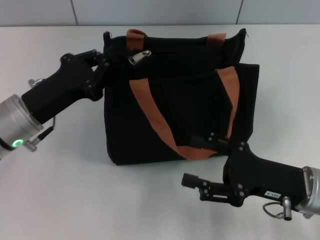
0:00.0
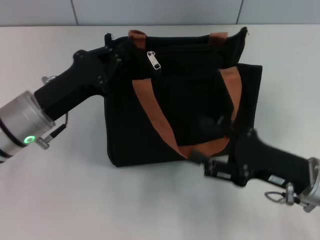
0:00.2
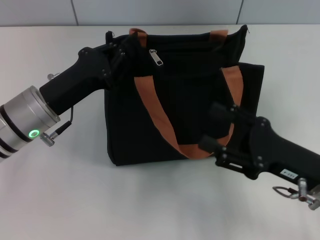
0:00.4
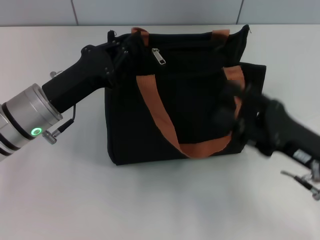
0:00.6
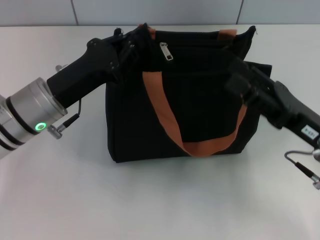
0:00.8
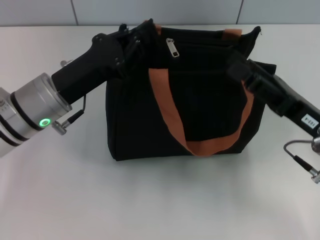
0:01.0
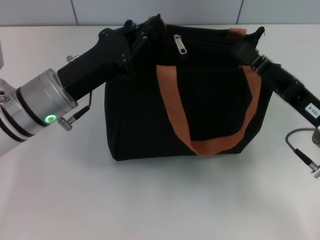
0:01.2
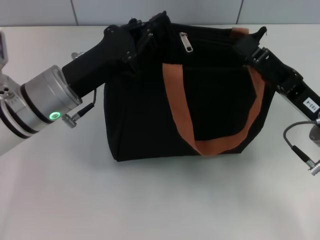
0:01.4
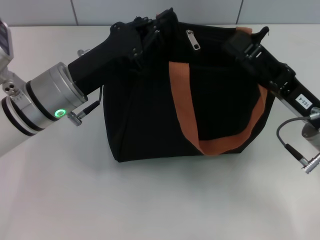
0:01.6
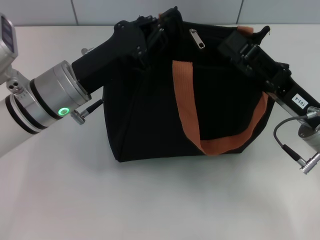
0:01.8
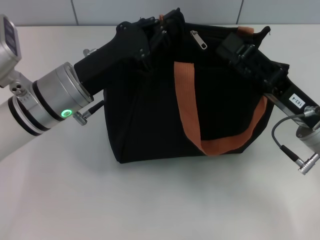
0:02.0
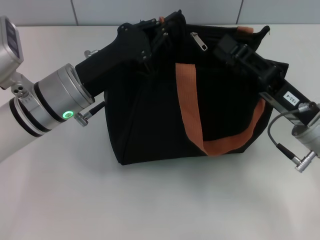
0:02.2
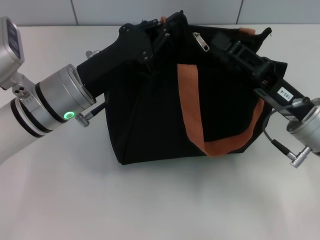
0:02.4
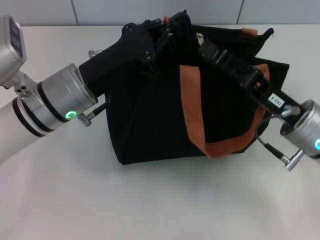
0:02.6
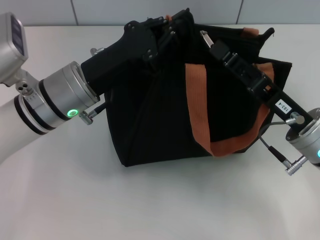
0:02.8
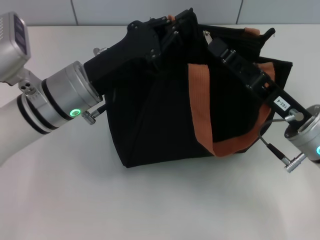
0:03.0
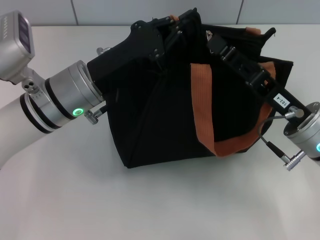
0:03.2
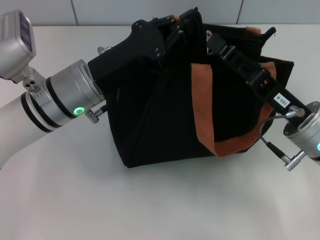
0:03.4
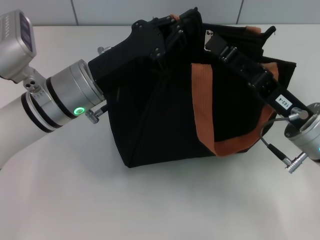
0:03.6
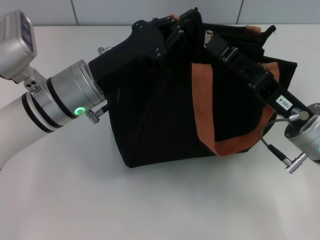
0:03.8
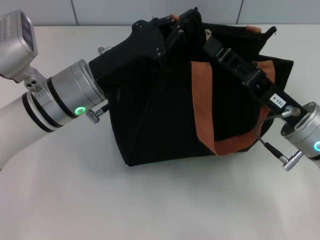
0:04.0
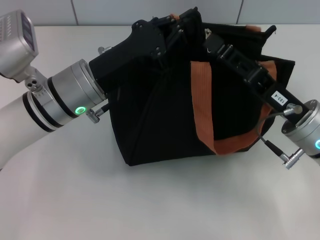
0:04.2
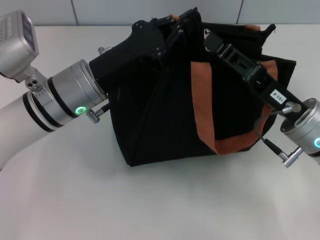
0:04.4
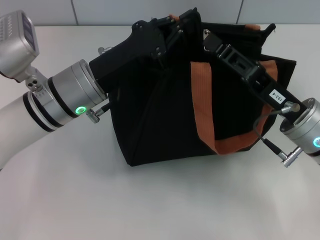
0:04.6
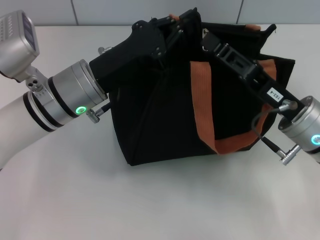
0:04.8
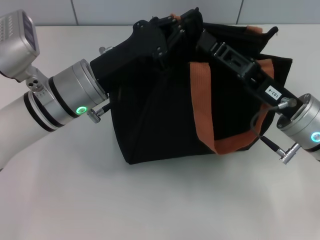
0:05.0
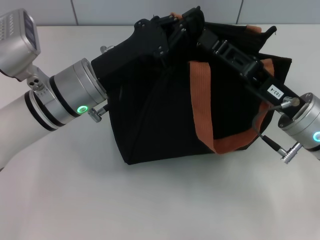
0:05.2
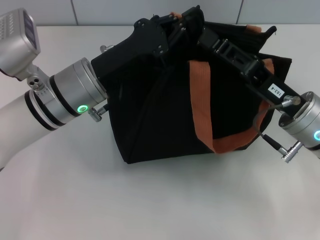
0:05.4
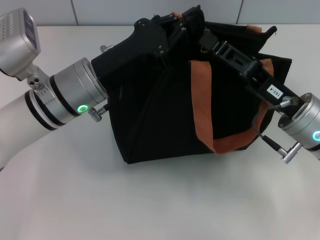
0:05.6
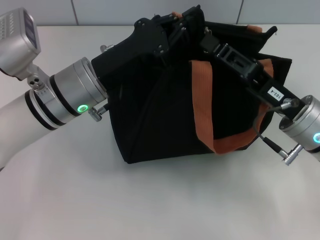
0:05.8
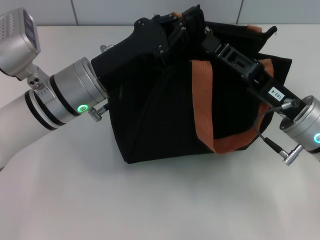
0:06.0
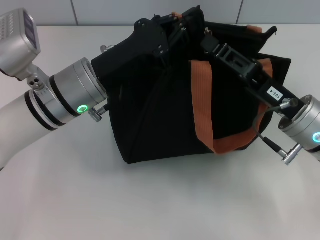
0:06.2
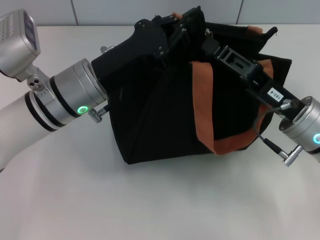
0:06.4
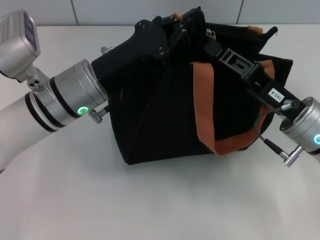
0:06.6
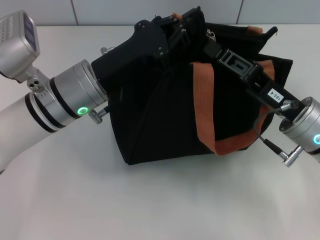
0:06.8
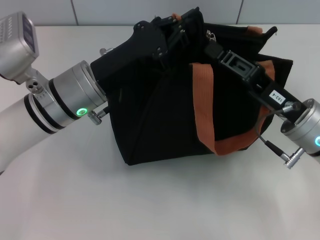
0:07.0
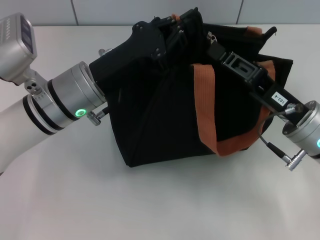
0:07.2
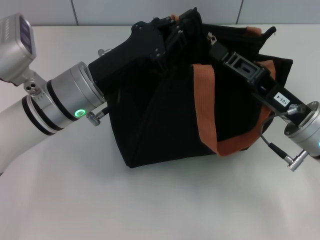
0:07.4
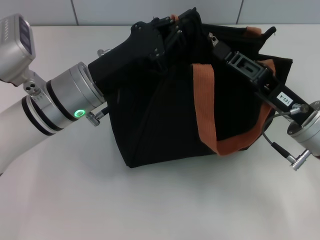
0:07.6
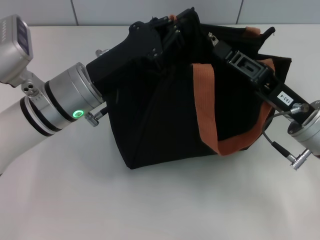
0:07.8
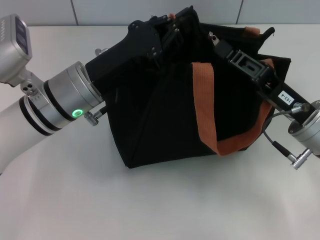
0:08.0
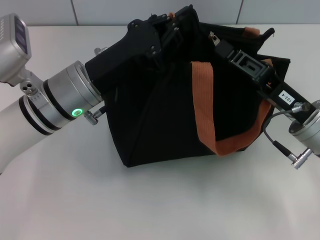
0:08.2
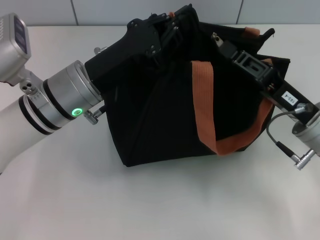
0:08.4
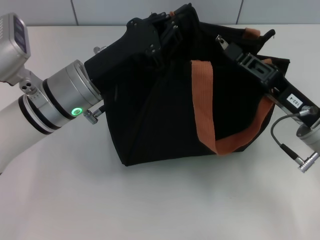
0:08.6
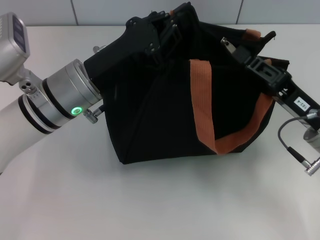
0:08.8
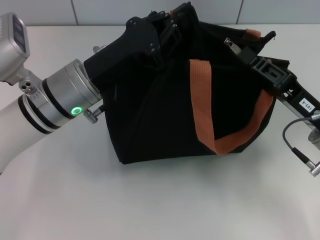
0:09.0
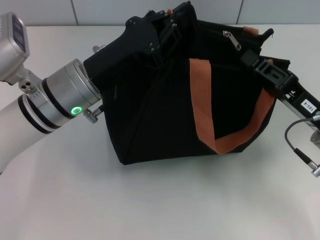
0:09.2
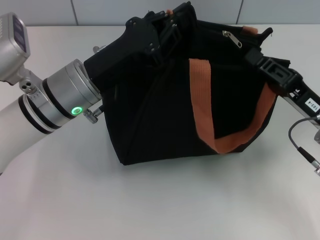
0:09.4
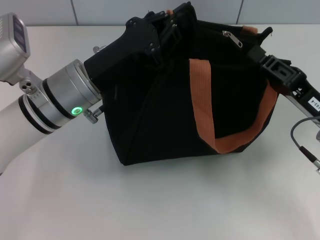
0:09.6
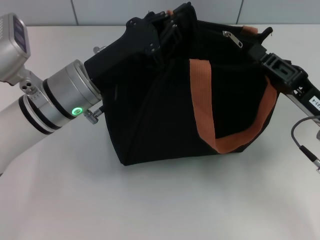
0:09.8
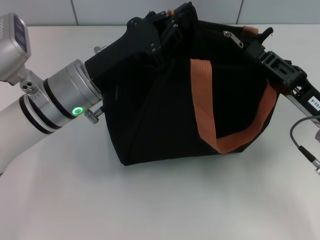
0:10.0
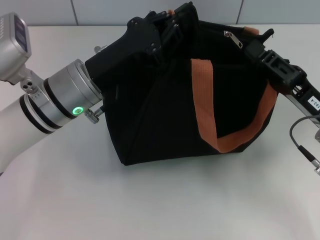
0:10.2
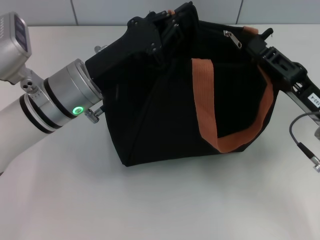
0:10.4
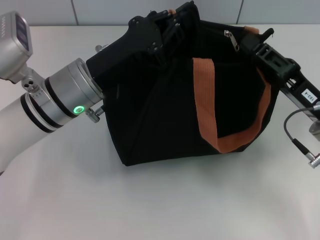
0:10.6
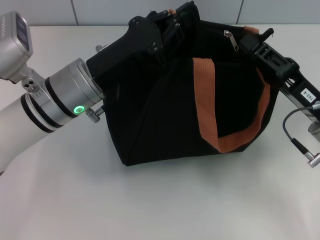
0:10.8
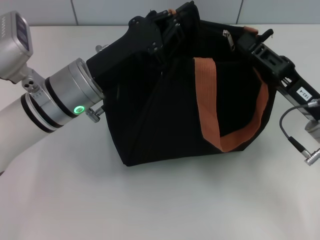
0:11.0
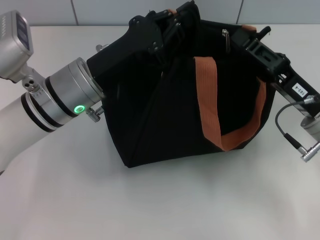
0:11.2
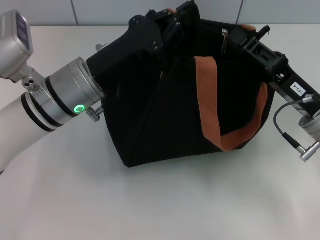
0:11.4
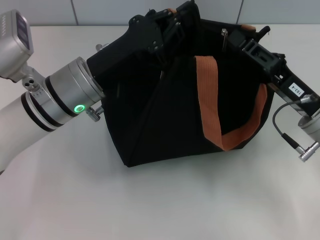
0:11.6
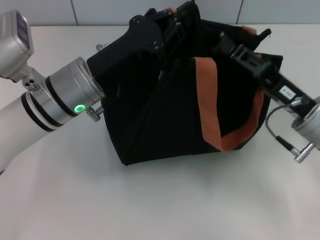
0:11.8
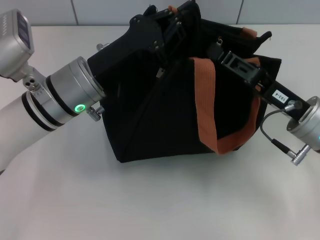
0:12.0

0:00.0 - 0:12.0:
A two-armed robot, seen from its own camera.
0:00.0 - 0:01.6: The right gripper shifts by approximately 5 cm. The left gripper heads to the right, covering approximately 5 cm.
0:03.0 - 0:04.4: Both grippers stay put.
0:04.4 - 0:06.0: Neither gripper changes place.
0:06.0 - 0:07.6: The right gripper closes up.
0:07.6 - 0:09.0: The grippers move only a little.
0:09.0 - 0:10.4: The two grippers keep their place.
0:10.4 - 0:12.0: The grippers make only small movements.

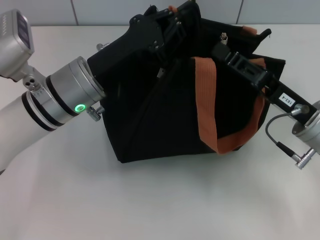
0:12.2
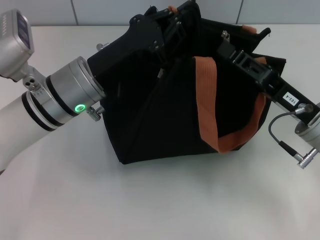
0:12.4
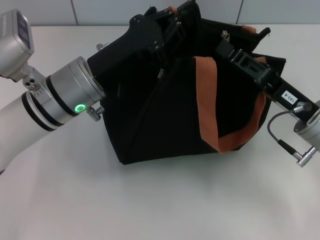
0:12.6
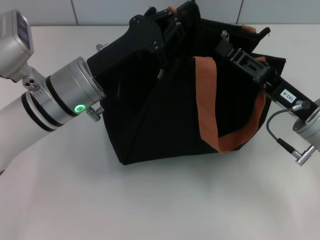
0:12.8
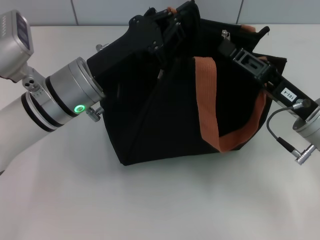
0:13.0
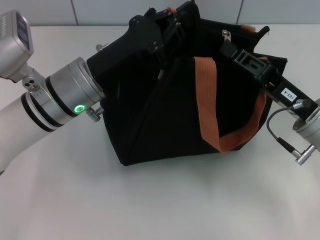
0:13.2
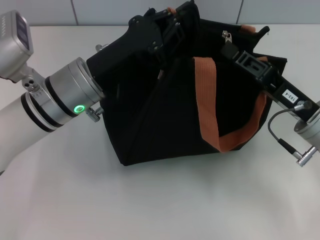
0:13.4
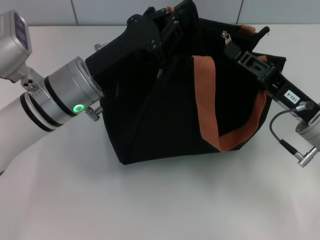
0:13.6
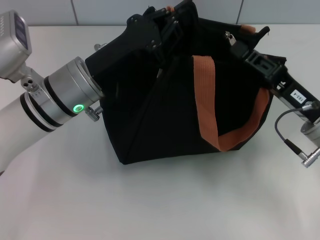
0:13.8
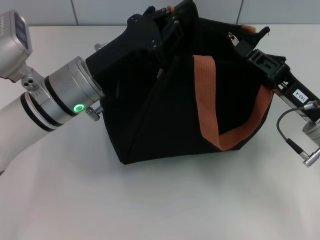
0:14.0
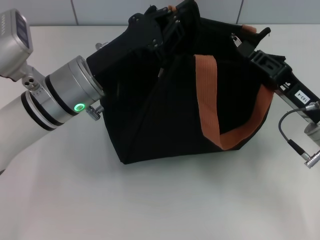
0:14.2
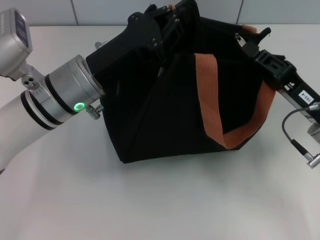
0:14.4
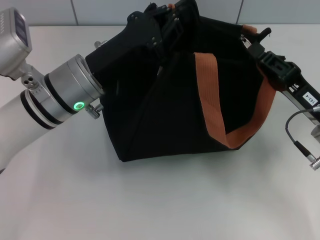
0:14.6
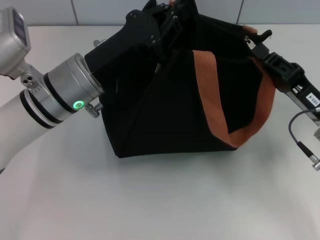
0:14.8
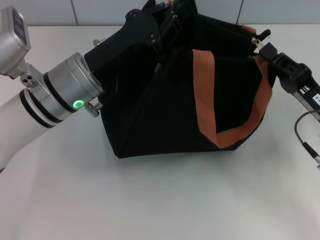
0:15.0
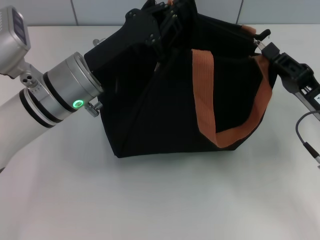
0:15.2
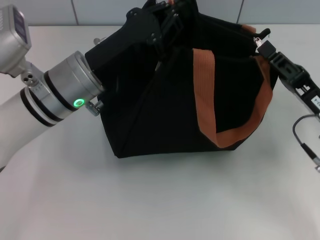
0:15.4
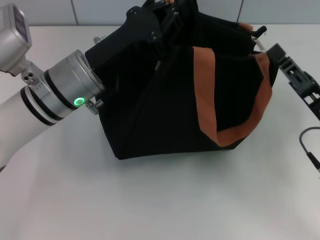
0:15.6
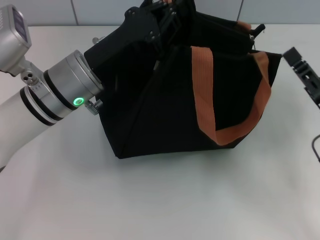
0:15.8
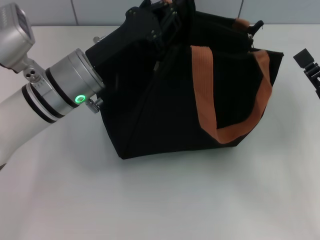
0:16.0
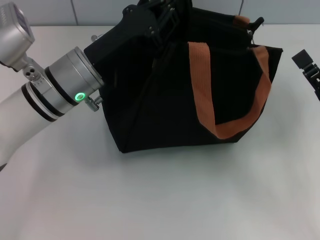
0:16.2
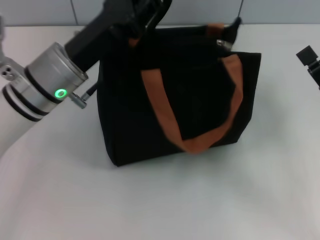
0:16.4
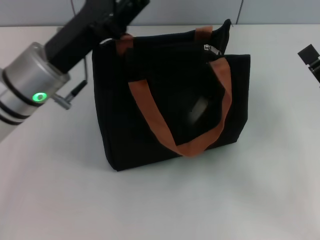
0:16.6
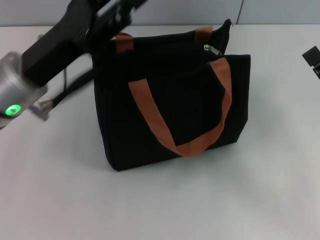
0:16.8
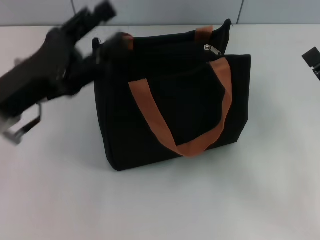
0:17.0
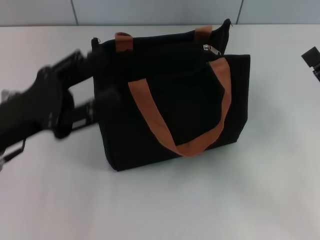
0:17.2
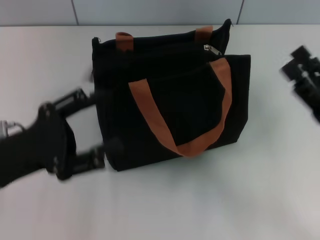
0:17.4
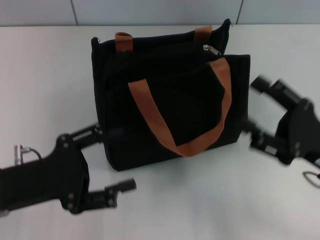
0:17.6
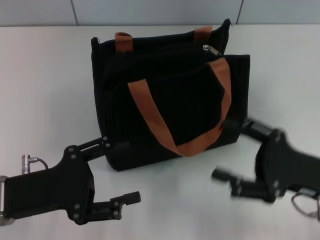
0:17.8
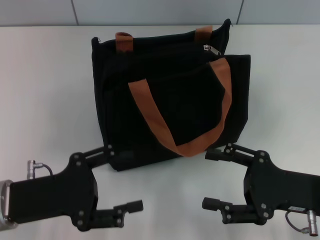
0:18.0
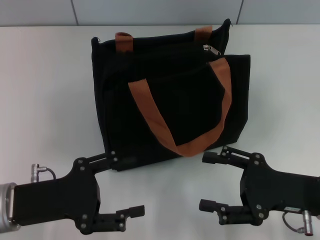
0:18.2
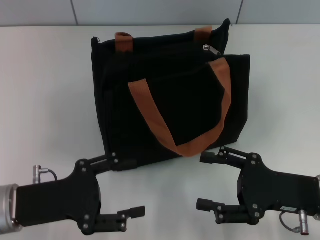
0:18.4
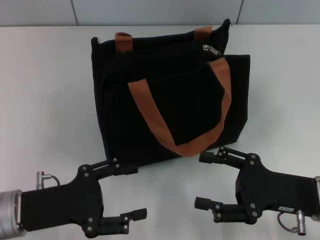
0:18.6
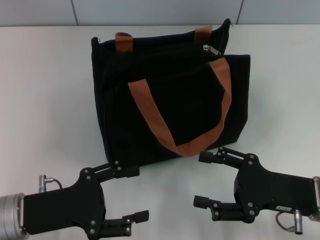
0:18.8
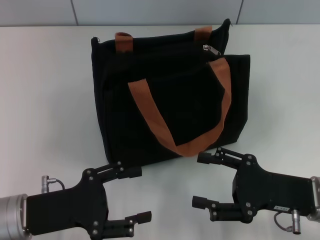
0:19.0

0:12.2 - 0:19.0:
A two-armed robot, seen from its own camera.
Step, 0:12.2 - 0:15.4: Pull up the zipper with your right hand.
Step, 0:15.6 - 0:16.8: Grab the zipper with your left hand.
0:12.2 - 0:13.6: Both grippers stay put.
0:13.6 - 0:15.0: The grippers move only a little.
0:15.0 - 0:16.2: The right gripper opens up.
0:16.2 - 0:17.6: The left gripper travels backward and to the left by approximately 15 cm, and opens.
